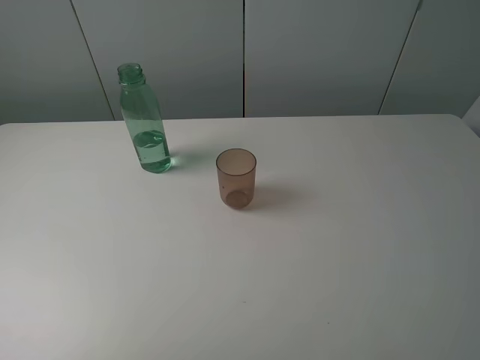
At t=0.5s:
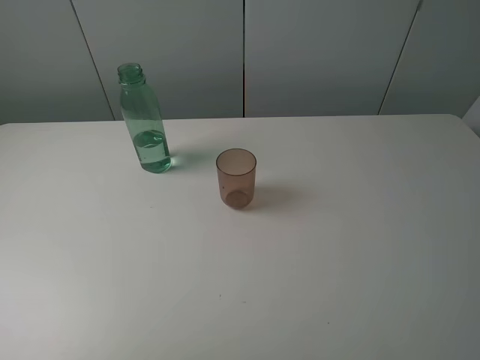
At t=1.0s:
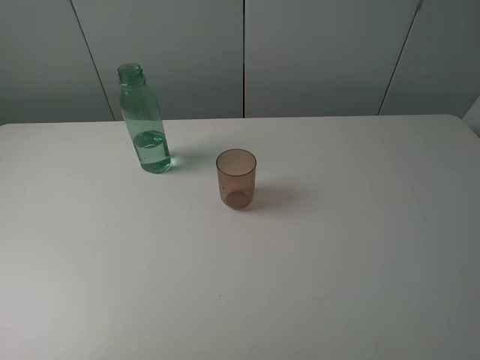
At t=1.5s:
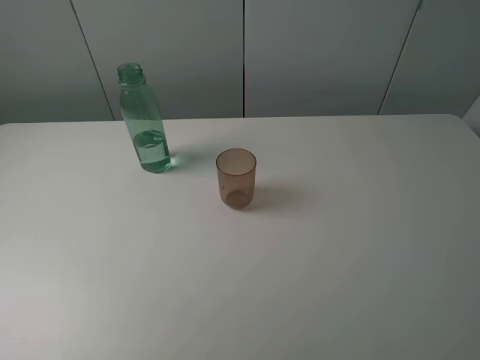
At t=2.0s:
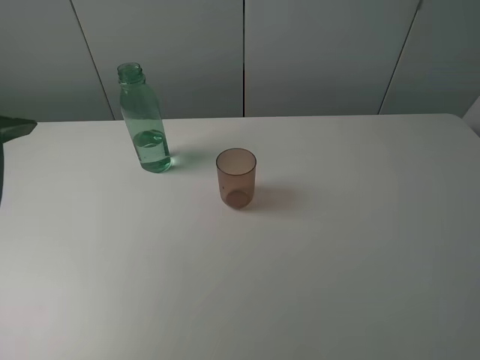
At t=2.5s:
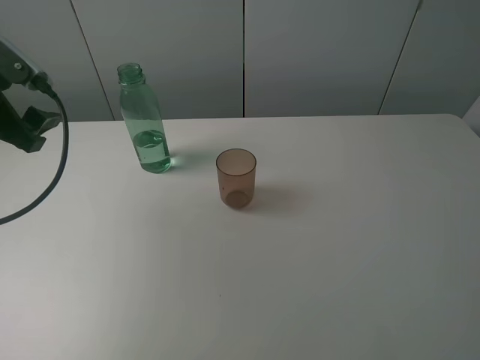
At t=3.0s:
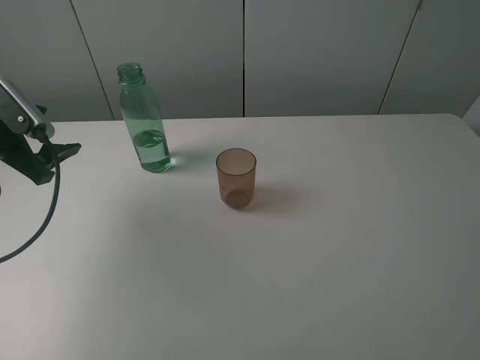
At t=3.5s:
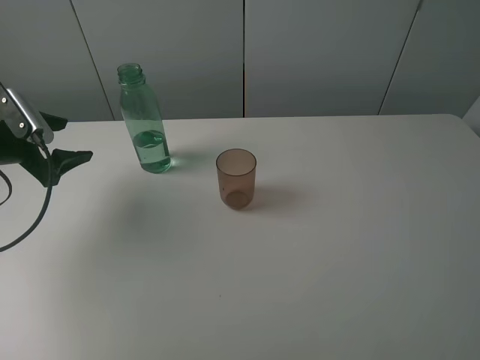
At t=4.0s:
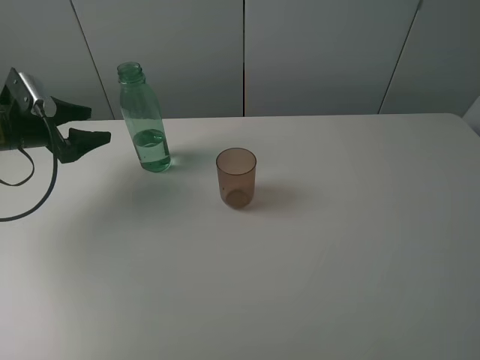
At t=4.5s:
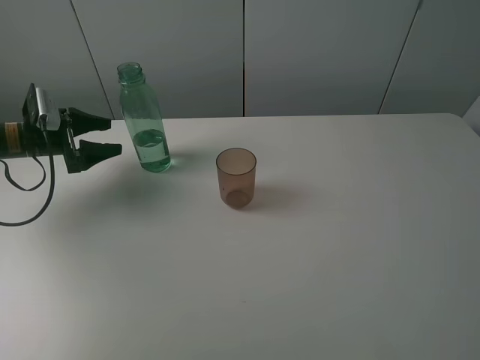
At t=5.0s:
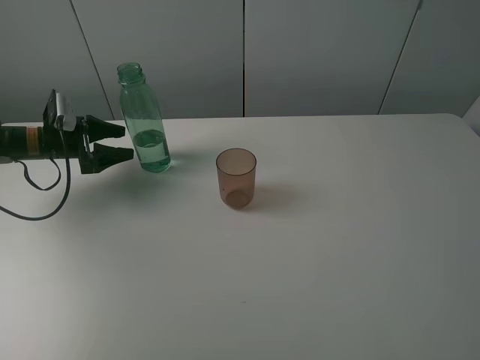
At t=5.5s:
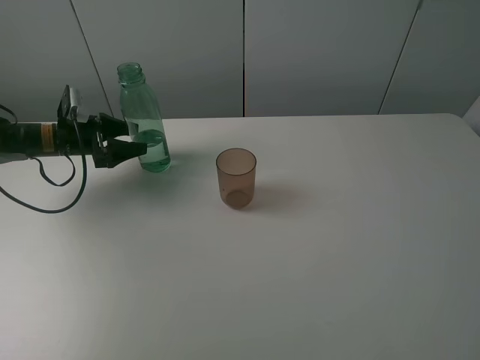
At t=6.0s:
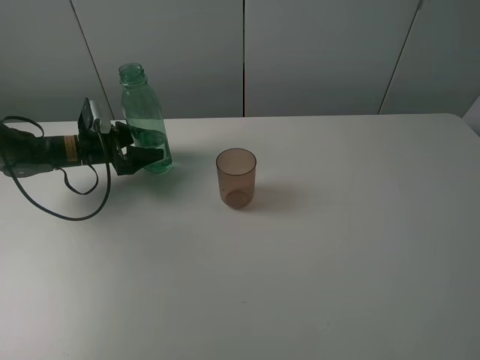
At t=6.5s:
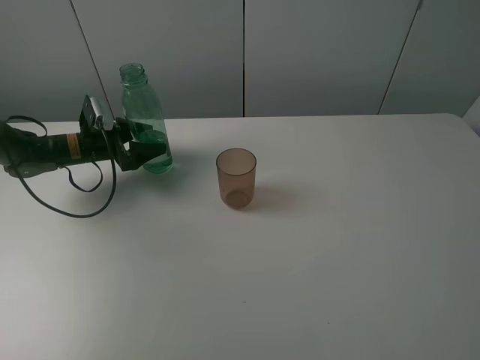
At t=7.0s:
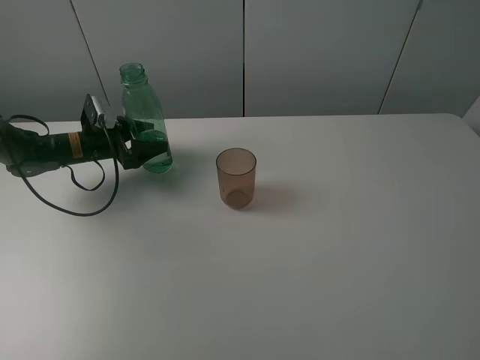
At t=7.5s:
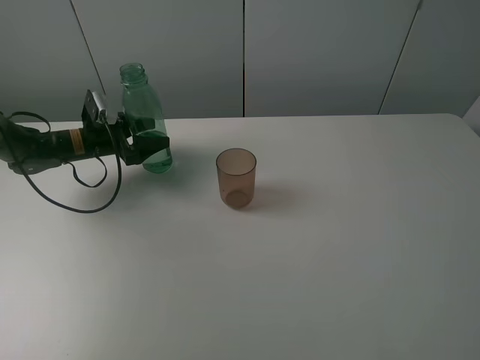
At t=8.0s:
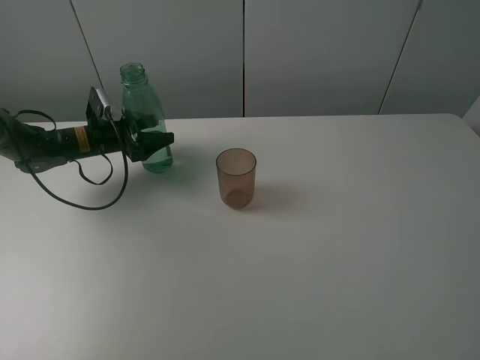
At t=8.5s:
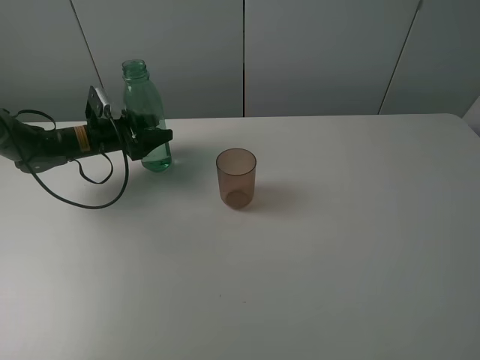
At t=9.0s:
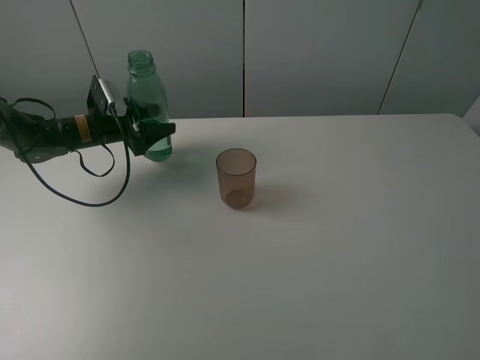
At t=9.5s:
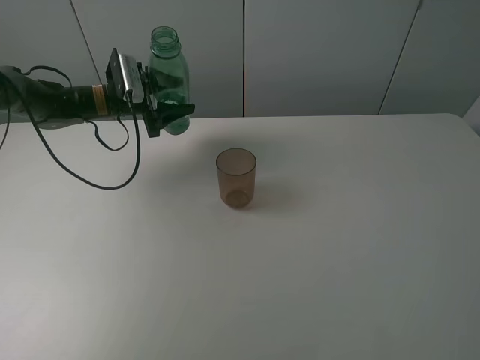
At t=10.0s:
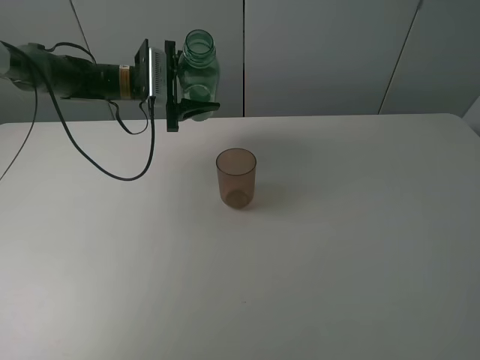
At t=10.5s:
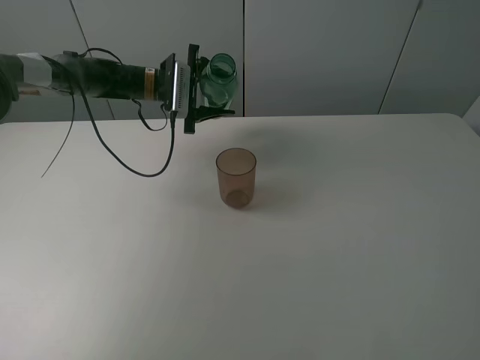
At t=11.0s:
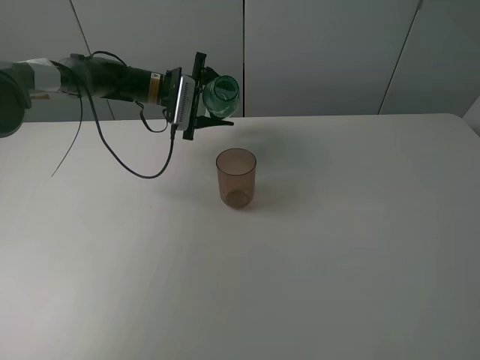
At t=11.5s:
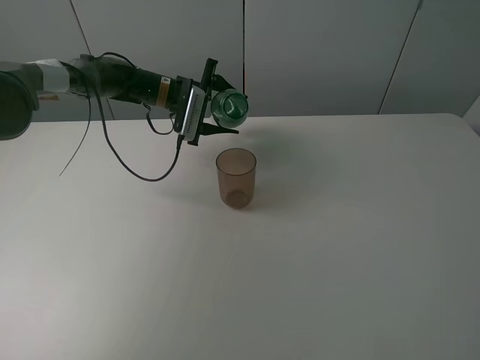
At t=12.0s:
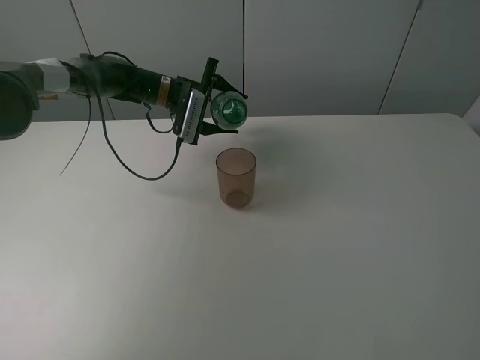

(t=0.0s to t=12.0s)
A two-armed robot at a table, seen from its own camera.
Task of the whole recording: pick up the bottle filled with water and pour it into the pink cup.
Step, t=0.0s - t=8.5s: Grasp the green bottle with the left gripper.
t=2.0s - t=4.0s: The left gripper goes about 25 cm forward and downward.
t=4.0s - t=6.0s: The left gripper shifts some 10 cm downward, to the right and forward.
t=6.0s - t=8.0s: There are only small adjustments of the grippers.
t=8.0s - t=10.0s: The left gripper travels to the right and upward by some 15 cm, and closes up.
t=10.0s - t=12.0s: The left gripper is displaced to the right by approximately 5 cm.

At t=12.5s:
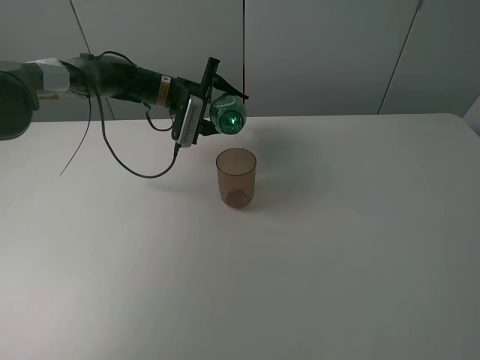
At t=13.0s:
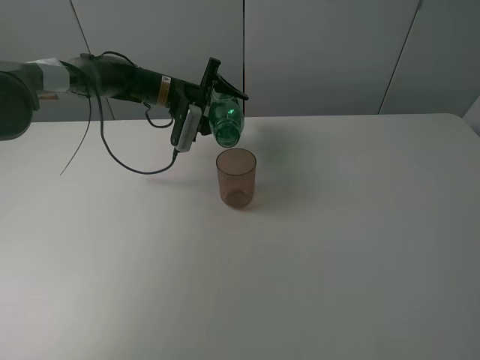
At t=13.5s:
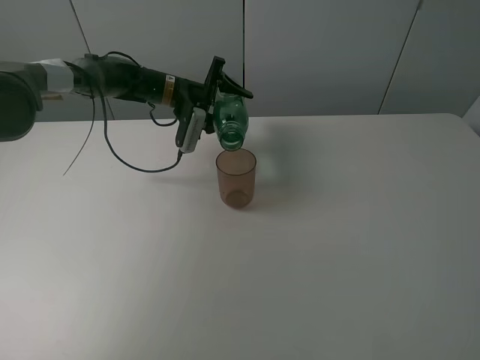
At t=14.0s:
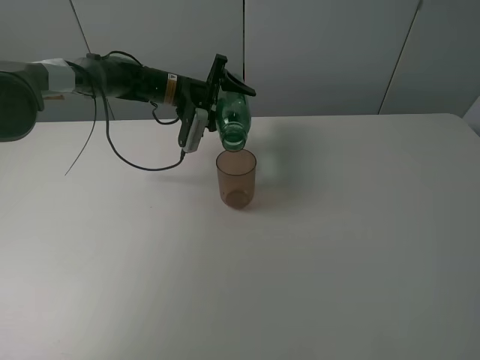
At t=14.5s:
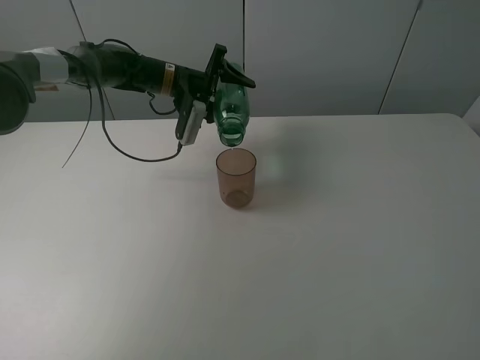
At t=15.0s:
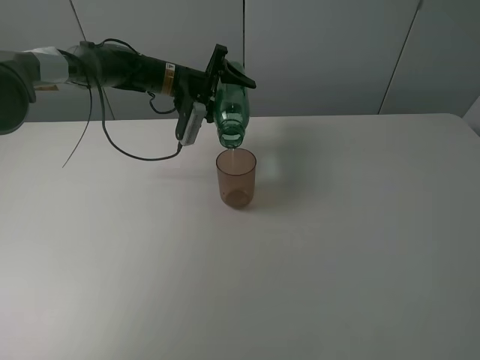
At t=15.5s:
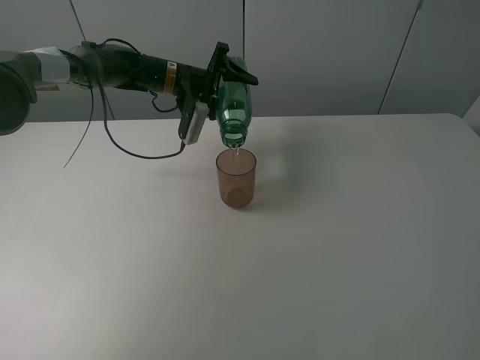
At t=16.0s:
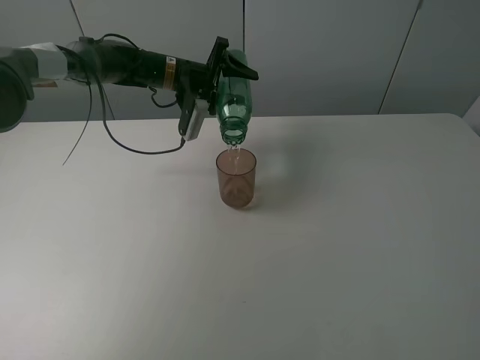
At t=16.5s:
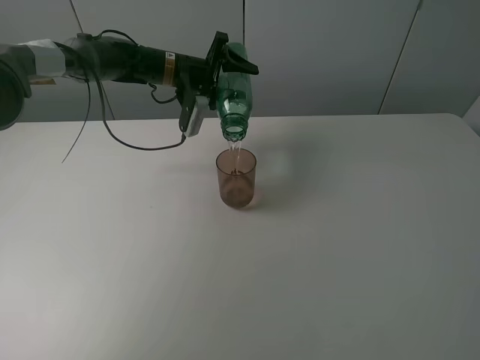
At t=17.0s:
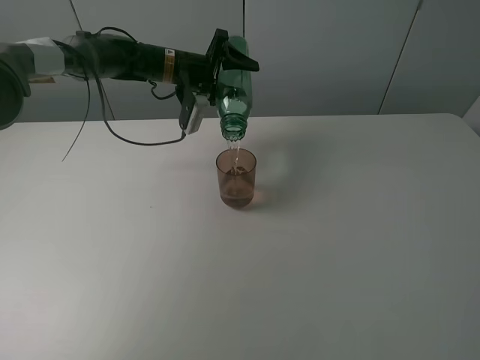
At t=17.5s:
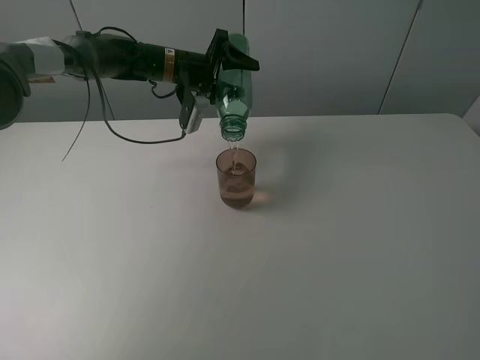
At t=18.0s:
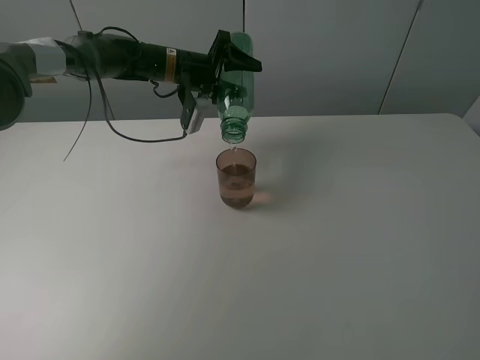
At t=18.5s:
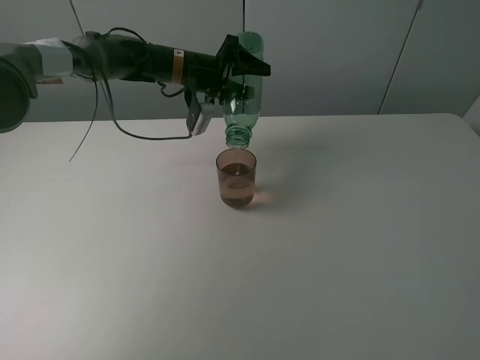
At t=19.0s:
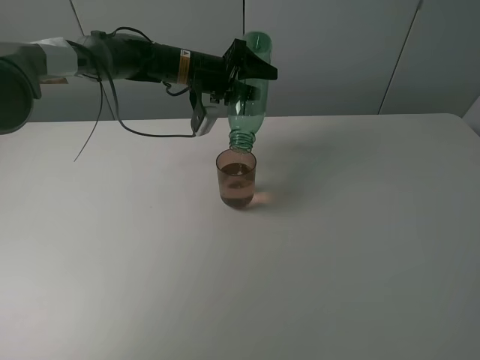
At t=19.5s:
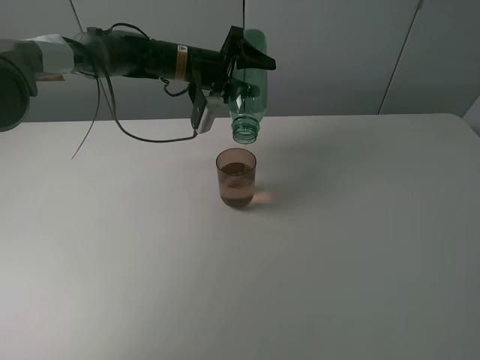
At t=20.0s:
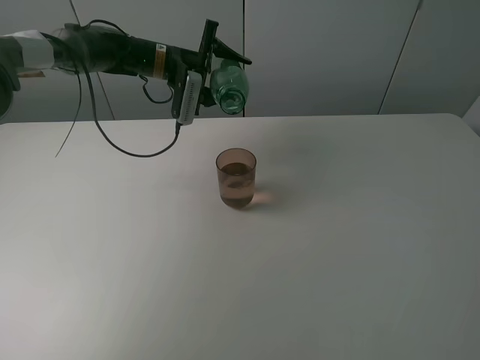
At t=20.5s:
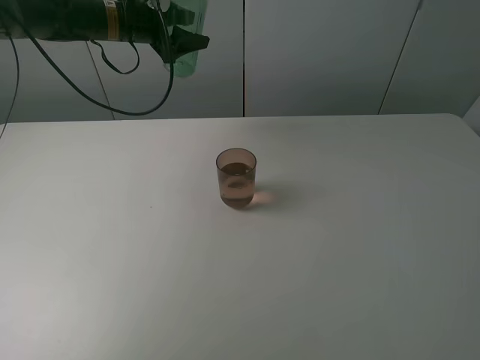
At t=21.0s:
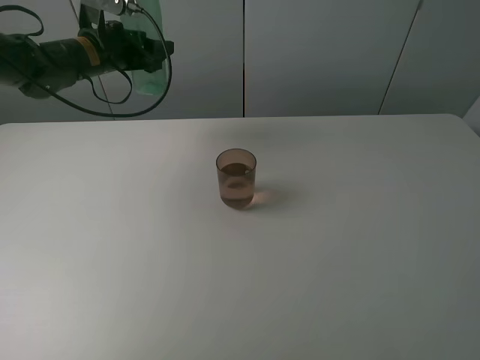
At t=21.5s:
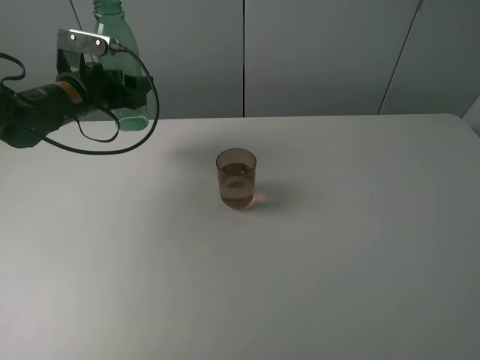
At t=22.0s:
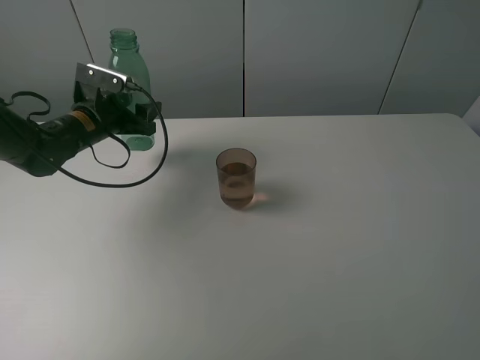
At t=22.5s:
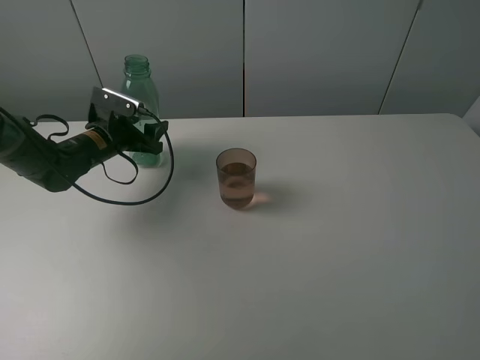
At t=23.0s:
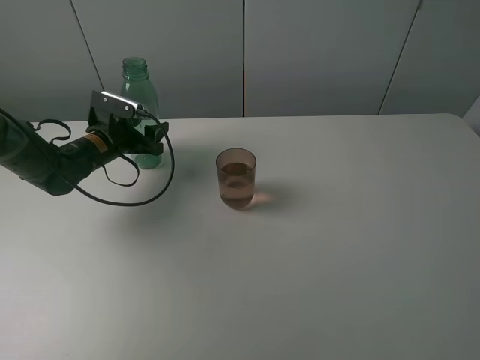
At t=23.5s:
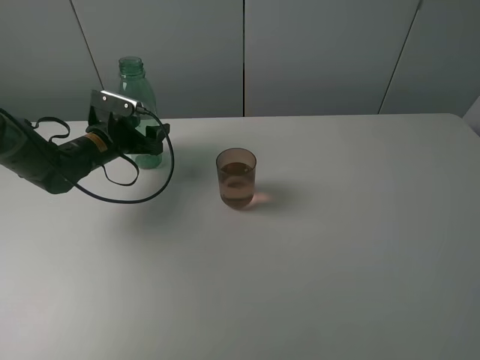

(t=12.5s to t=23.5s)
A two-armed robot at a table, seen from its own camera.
Task of the whole recording: pick up the bottle filled with water and pour it into the pink cup.
Step, t=12.5s - t=19.5s: Pour water from green bottle to pink cup with the left gripper.
t=14.5s - t=16.0s: There are only small adjustments of the grippers.
t=16.0s - t=18.0s: The grippers stay close to where they were, moving slightly.
t=20.0s - t=21.5s: The left gripper heads to the left and backward, covering roughly 15 cm.
t=21.5s - t=23.5s: The left gripper is displaced downward by some 10 cm, and opens.

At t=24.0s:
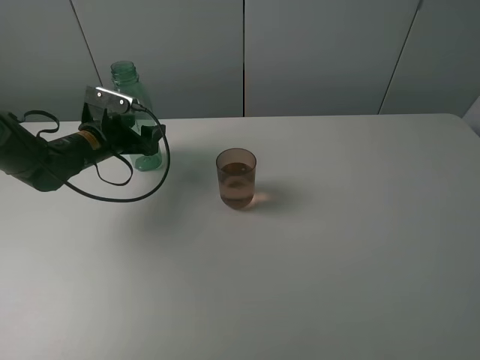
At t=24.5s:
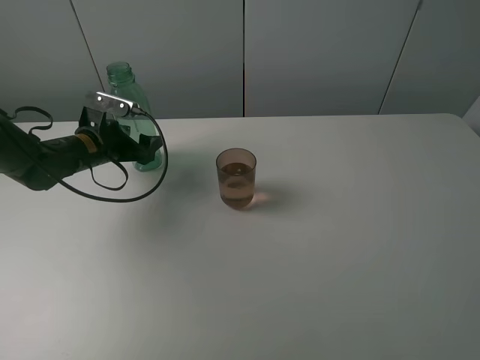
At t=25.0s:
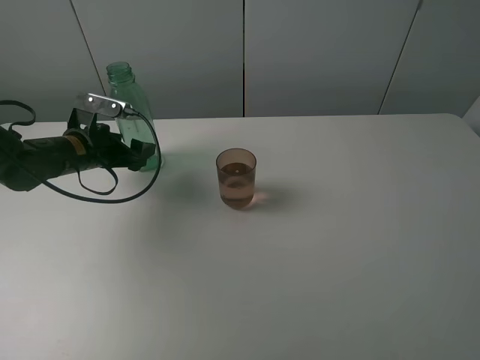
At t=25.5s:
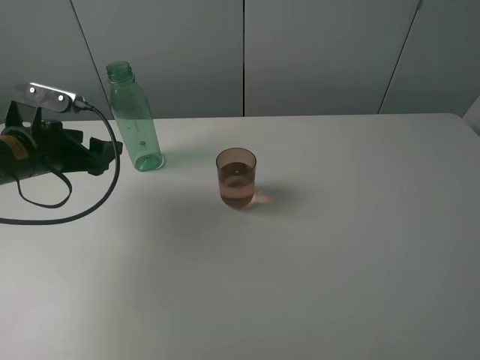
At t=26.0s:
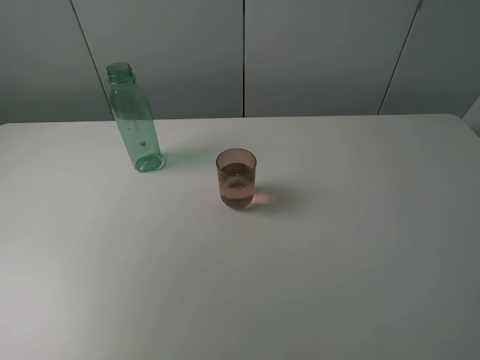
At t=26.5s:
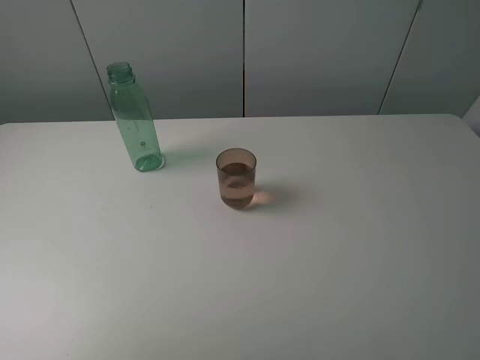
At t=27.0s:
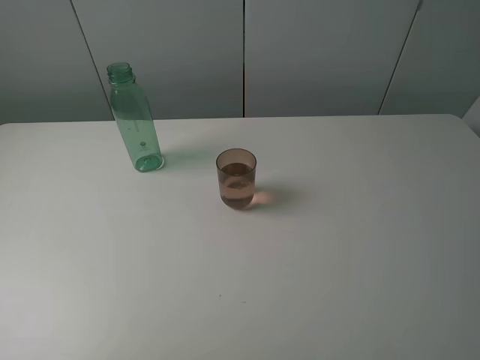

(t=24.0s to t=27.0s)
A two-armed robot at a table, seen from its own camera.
Task of the whole recording: pick up the bottle filled with water and pour it into the pink cup.
t=24.0s - t=25.5s: The left gripper moves backward, some 10 cm, and opens.
t=25.5s - t=27.0s: The left gripper shifts approximately 35 cm backward and upward.
